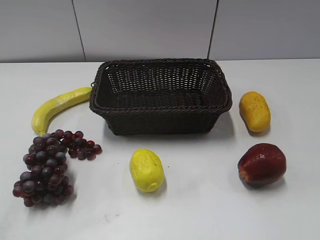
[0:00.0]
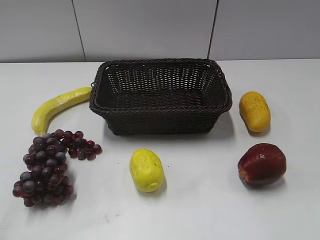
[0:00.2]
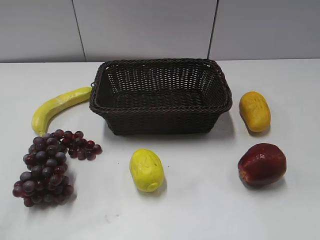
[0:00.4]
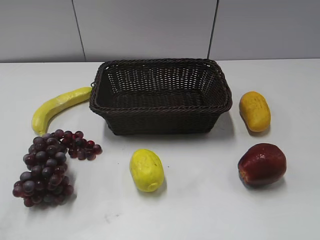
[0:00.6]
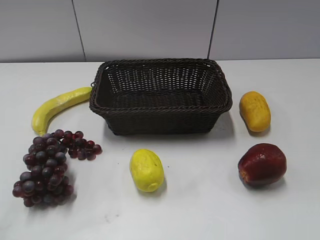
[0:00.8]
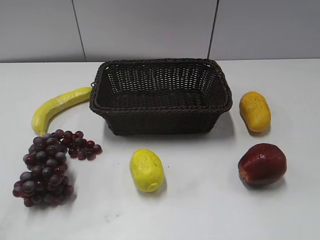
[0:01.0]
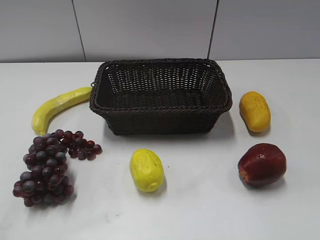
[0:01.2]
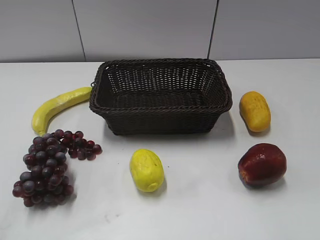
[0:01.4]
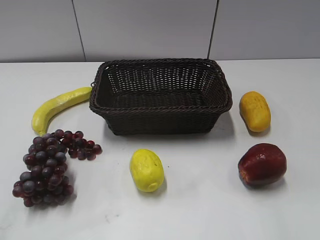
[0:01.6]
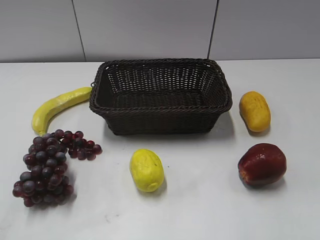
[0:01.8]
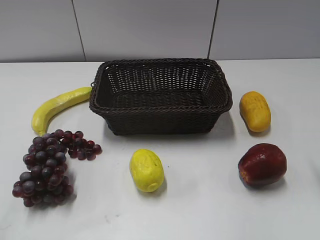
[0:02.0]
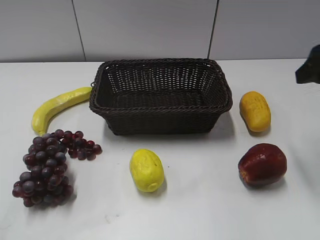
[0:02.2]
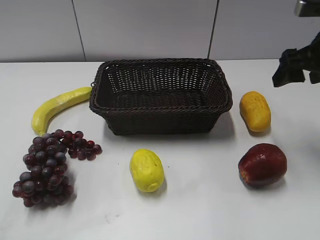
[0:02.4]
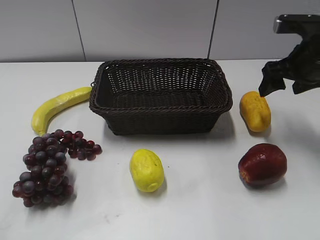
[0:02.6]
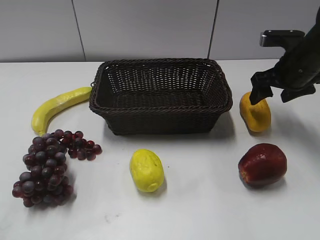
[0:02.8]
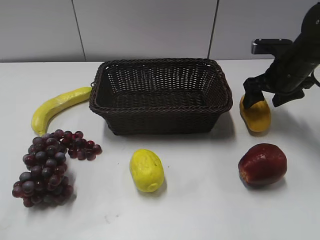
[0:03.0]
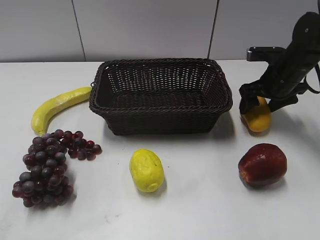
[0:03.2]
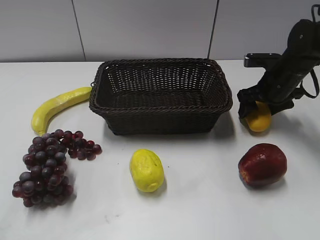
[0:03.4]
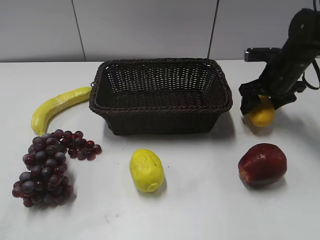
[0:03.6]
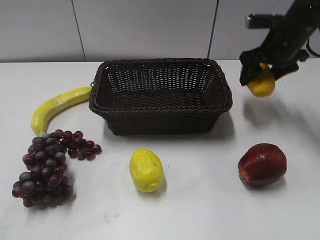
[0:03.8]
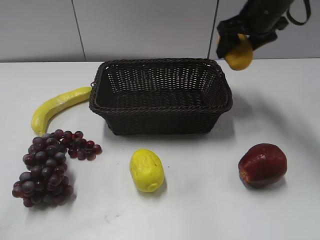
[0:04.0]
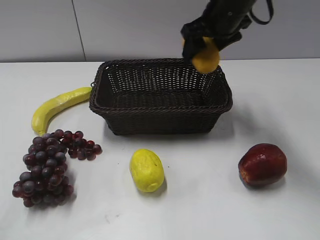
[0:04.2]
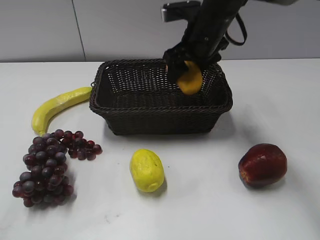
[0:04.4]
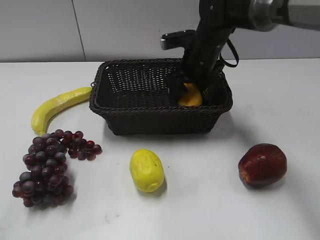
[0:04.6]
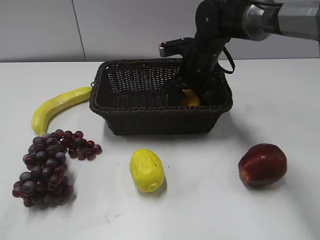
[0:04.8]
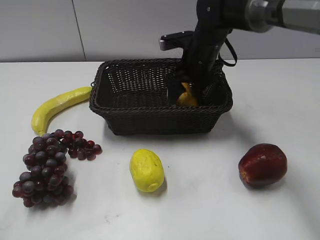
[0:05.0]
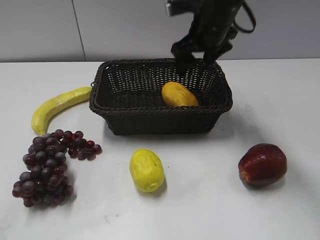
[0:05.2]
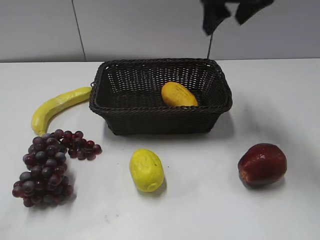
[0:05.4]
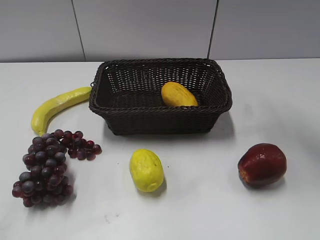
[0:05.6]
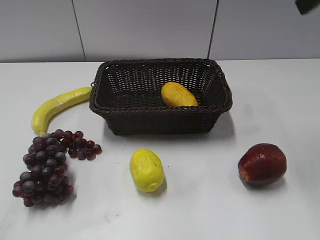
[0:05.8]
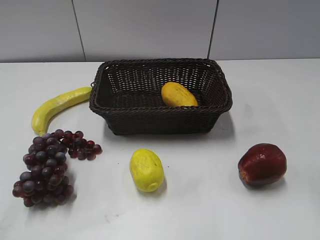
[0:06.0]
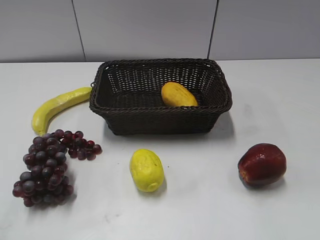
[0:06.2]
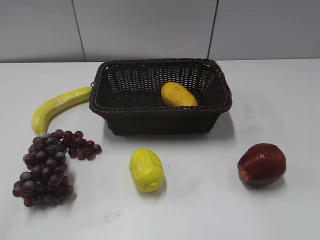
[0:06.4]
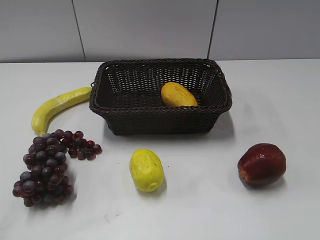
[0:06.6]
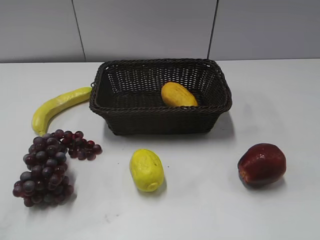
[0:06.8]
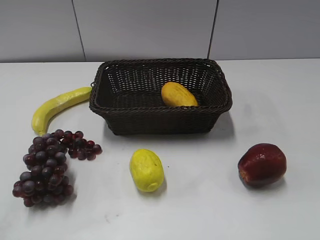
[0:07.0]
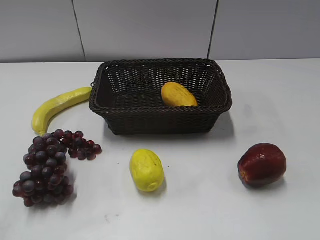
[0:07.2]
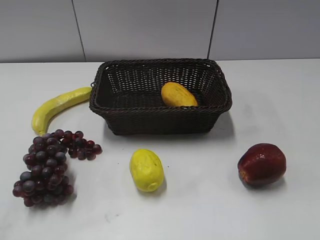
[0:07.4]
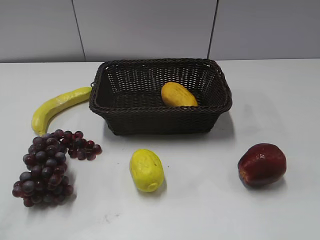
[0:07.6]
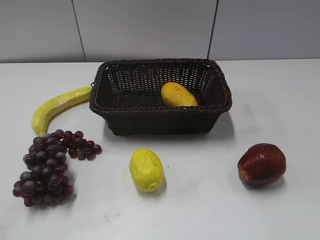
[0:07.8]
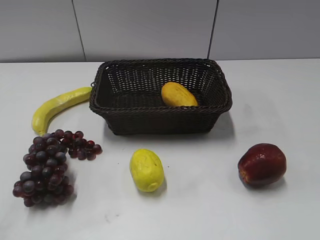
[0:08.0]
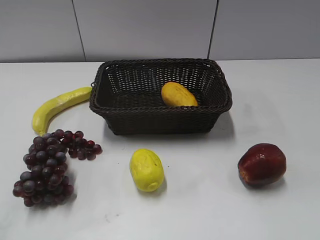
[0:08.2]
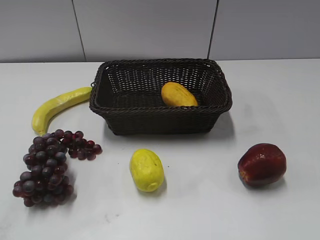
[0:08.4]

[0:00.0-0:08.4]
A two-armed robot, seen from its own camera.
Step, 0:02.2 to 0:03.4: Grasp the mango with right gripper.
Step, 0:03.6 to 0:05.0: Place the mango in the basket with right gripper.
0:01.4 to 0:02.8: The right gripper heads forward, covering some 35 cm.
0:02.8 to 0:04.2: The right gripper shifts roughly 15 cm to the left and upward.
0:04.2 to 0:05.6: The right gripper moves upward, to the right and backward, some 20 cm.
0:05.6 to 0:07.0: The right gripper travels backward by about 35 cm.
